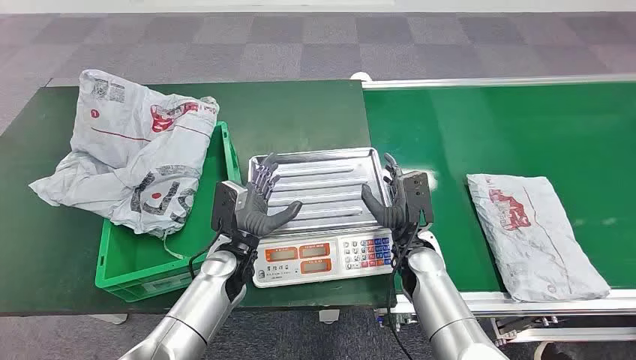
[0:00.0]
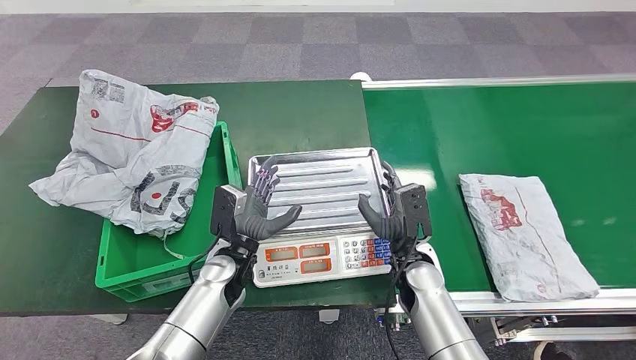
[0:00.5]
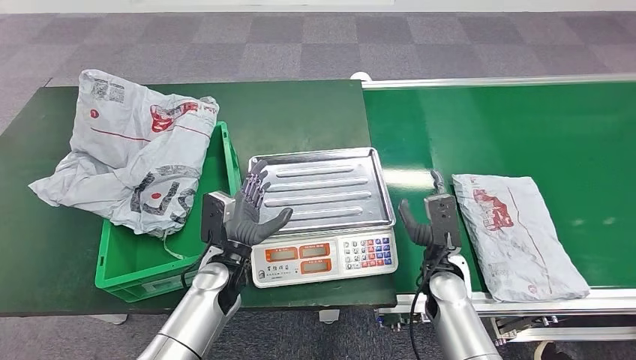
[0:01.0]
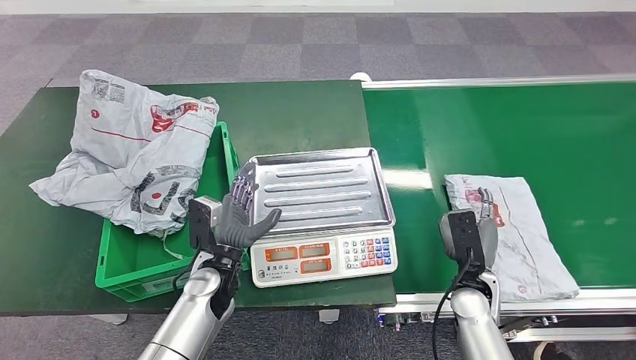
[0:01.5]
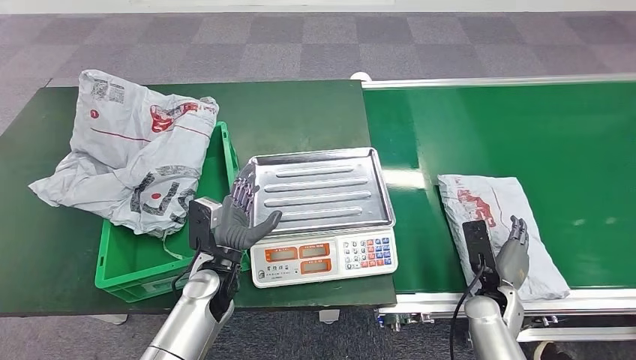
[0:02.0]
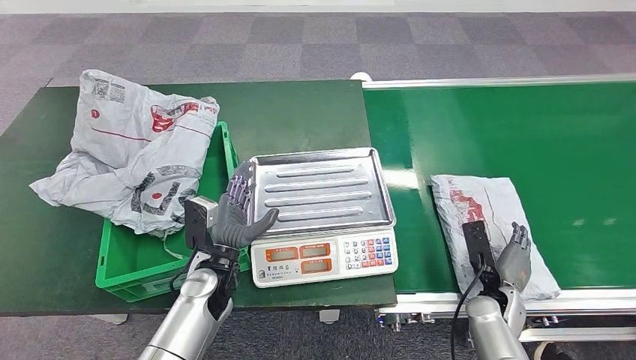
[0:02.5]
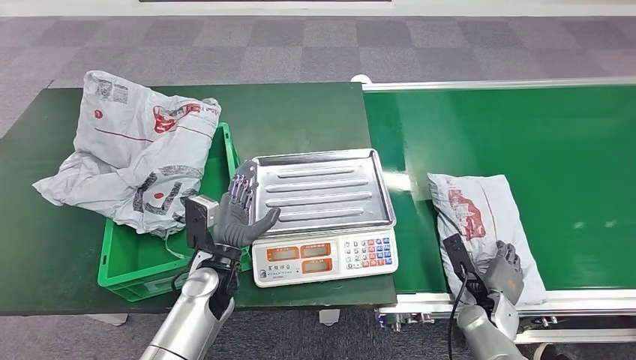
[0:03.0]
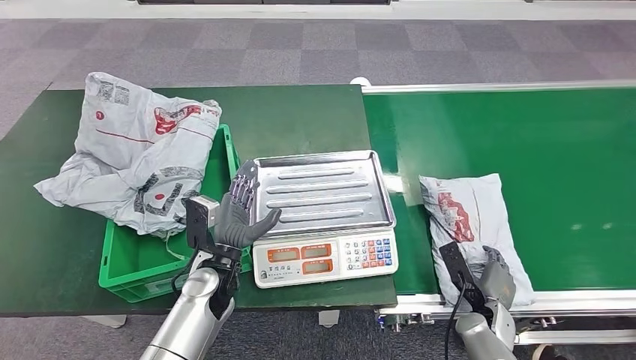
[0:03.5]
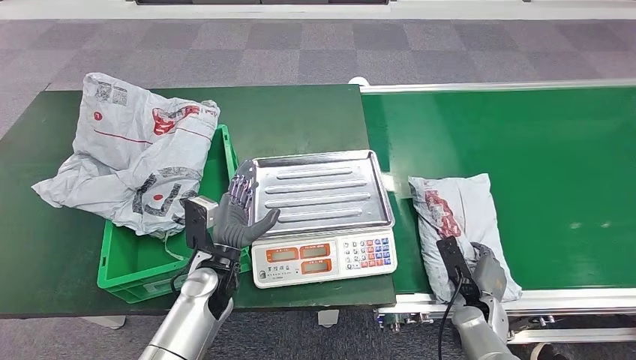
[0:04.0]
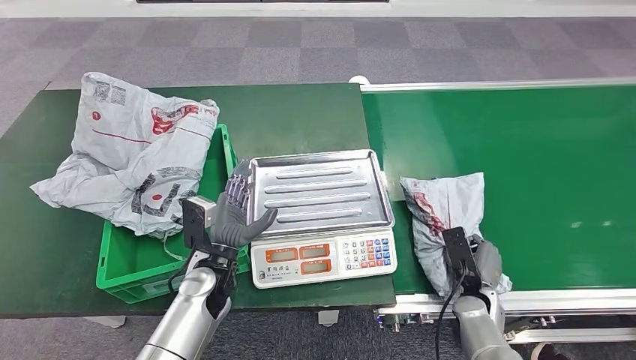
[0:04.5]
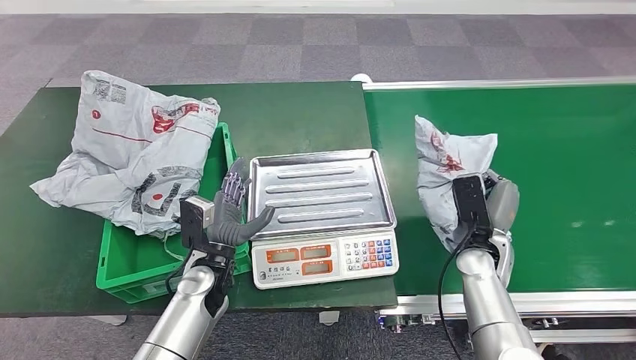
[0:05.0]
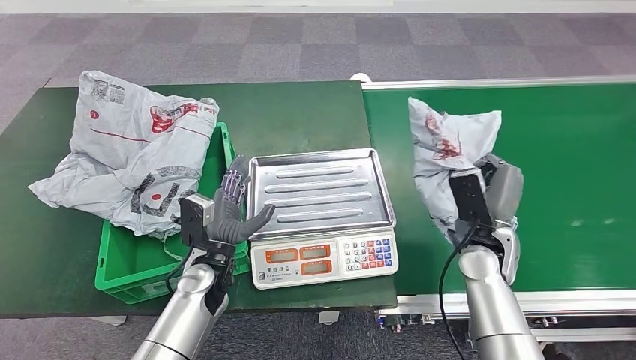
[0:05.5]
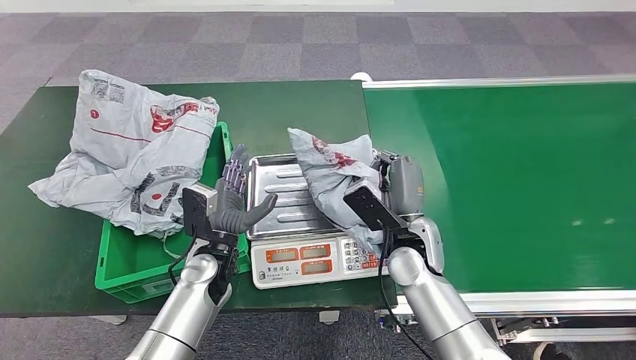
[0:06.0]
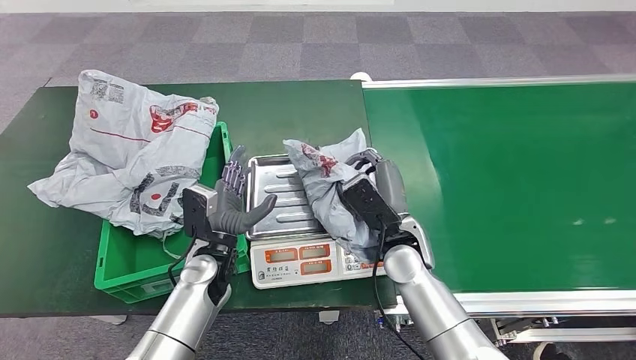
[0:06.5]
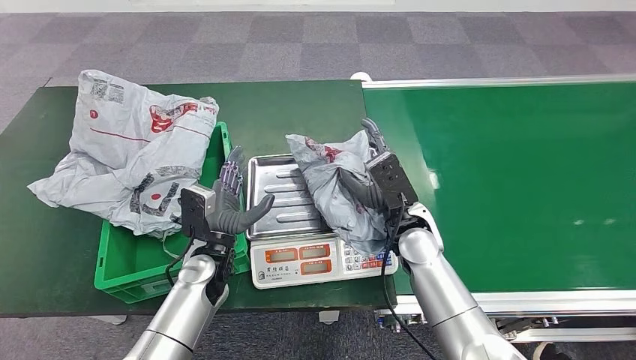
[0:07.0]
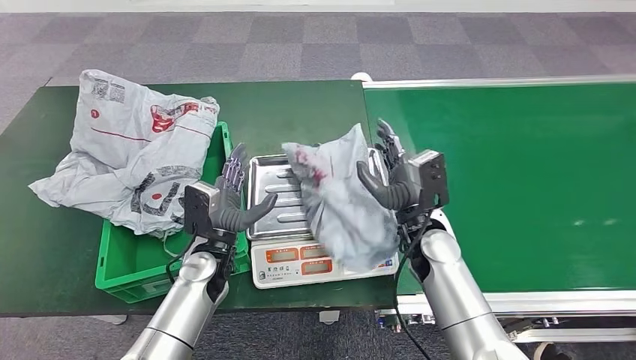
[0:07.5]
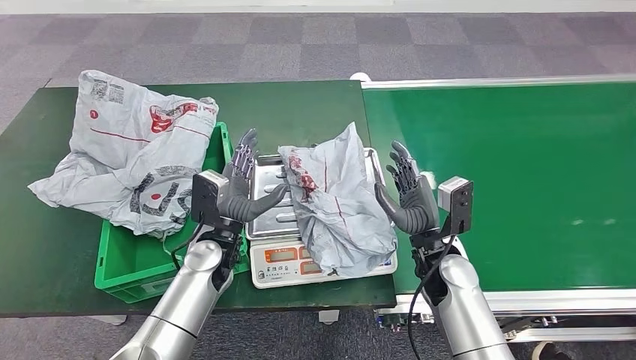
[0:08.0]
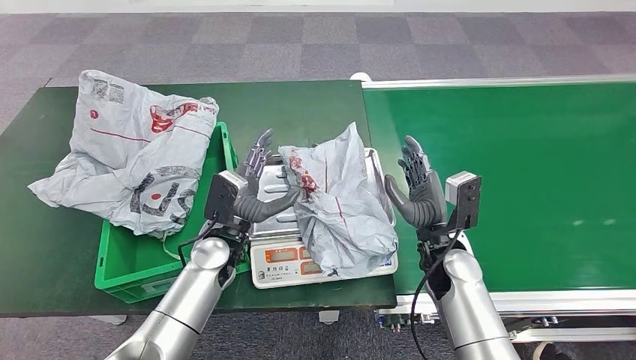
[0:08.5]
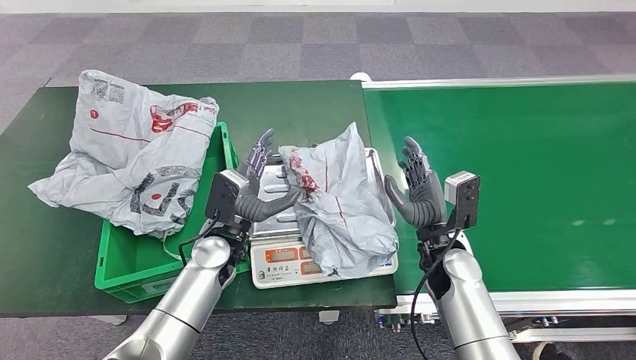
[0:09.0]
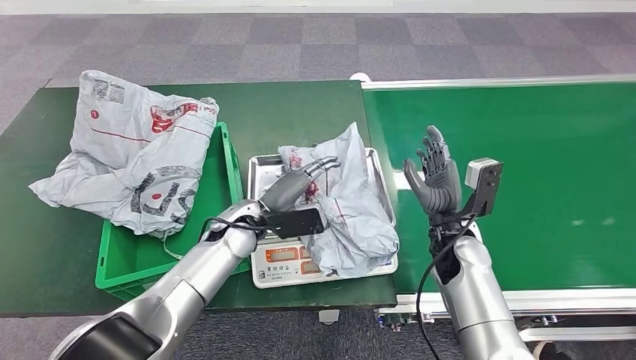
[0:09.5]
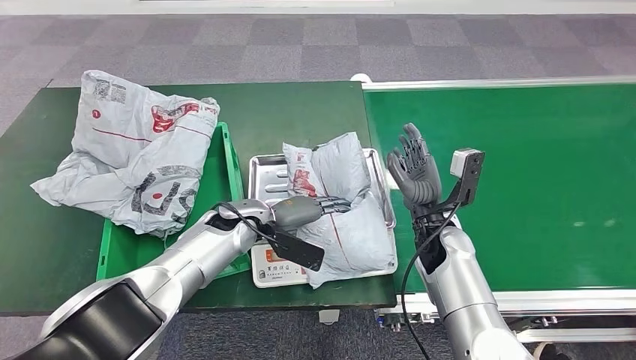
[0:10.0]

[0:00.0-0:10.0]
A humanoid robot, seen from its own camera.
Step, 0:00.0 to 0:05.0: Pick up the package from the conveyor belt.
Step, 0:05.5 to 0:08.0: Place the package onto the inbound machine.
0:02.0 to 0:04.0: The right hand ends up roughly 5 cm from where it was.
0:06.0 to 0:08.0: The right hand ends up some 5 cm from where it was.

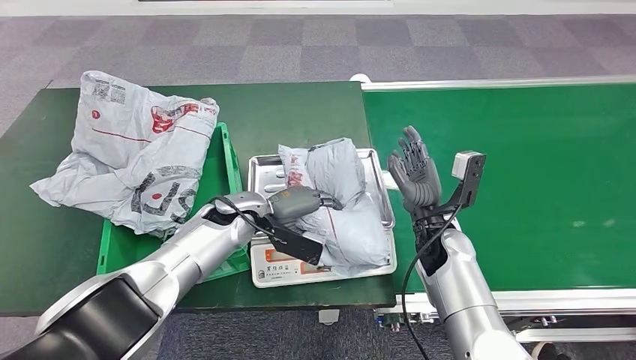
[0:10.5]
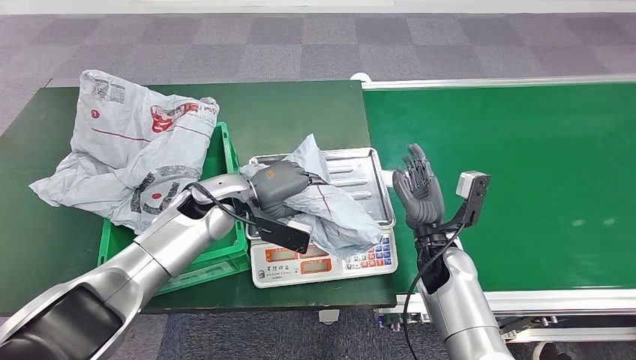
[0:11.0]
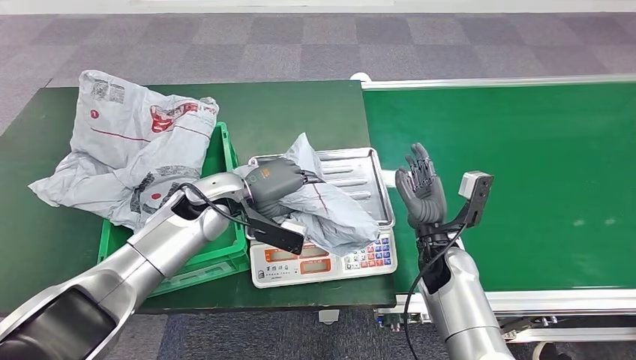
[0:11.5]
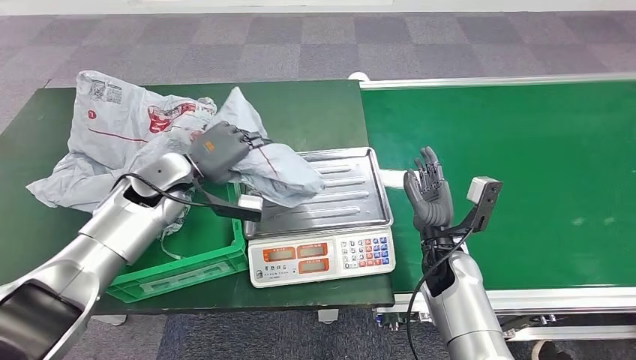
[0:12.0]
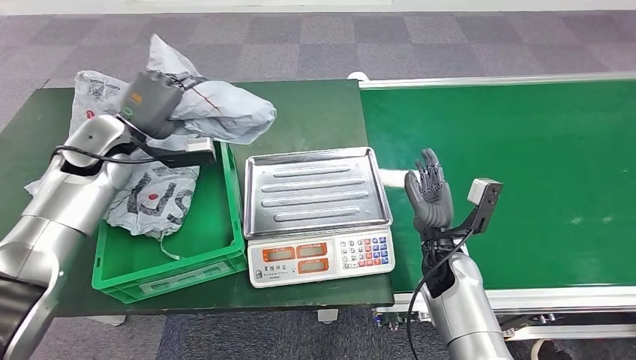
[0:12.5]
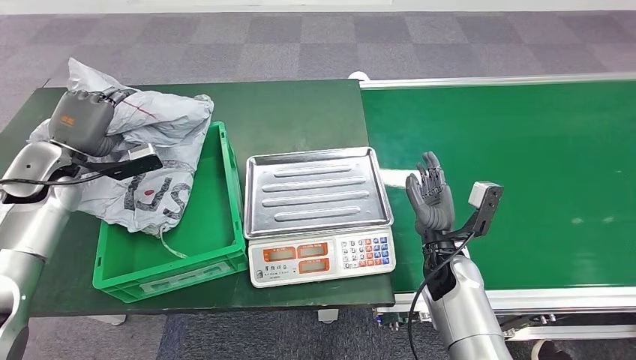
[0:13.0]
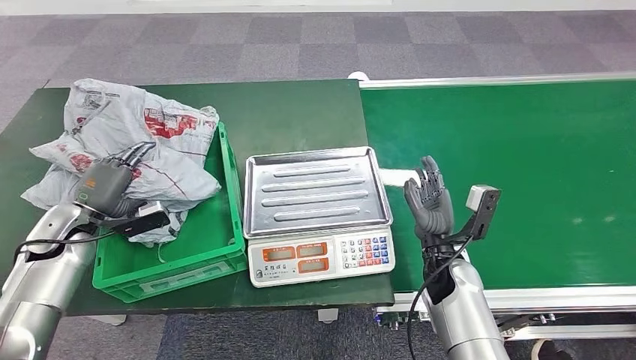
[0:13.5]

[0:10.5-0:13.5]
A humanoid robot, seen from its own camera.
Step, 0:11.5 to 0:13.0: Place the package into the parcel locker.

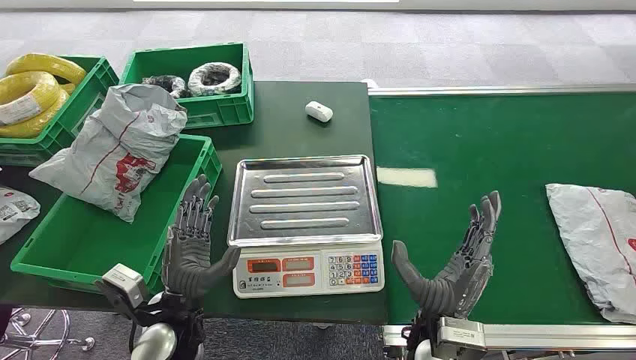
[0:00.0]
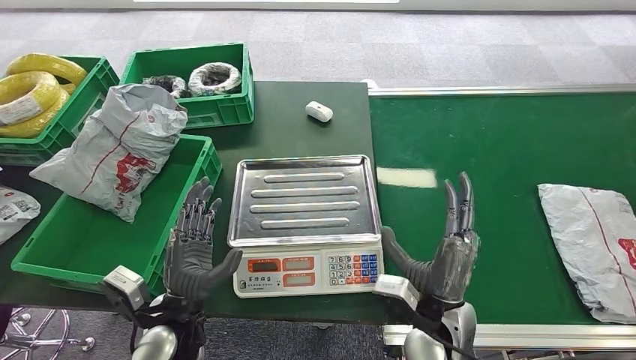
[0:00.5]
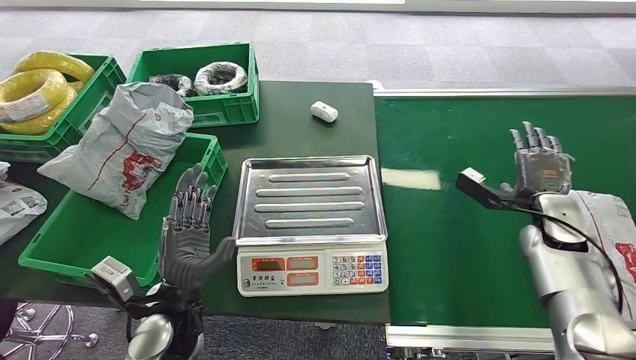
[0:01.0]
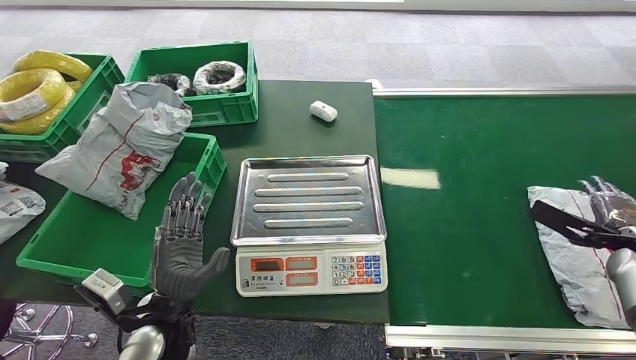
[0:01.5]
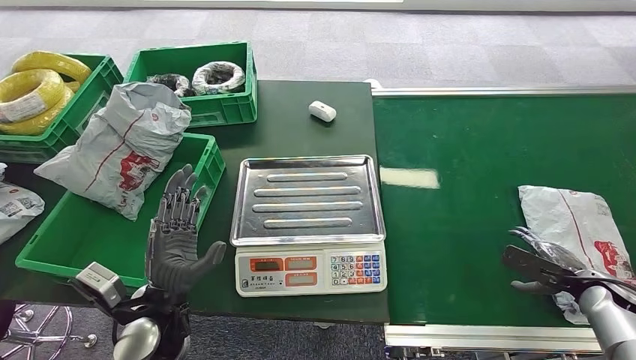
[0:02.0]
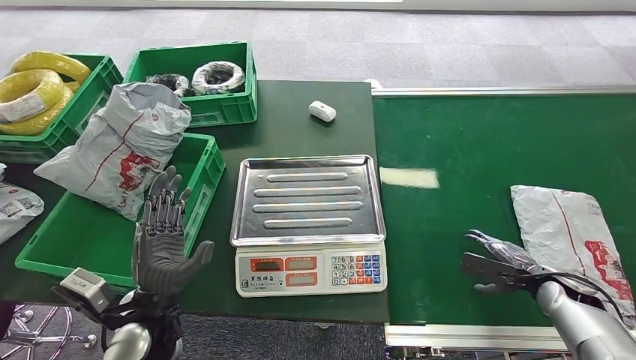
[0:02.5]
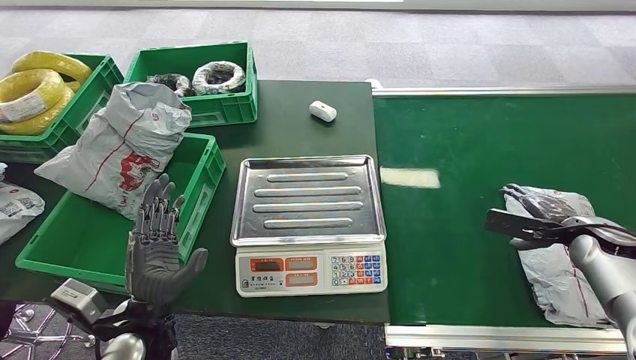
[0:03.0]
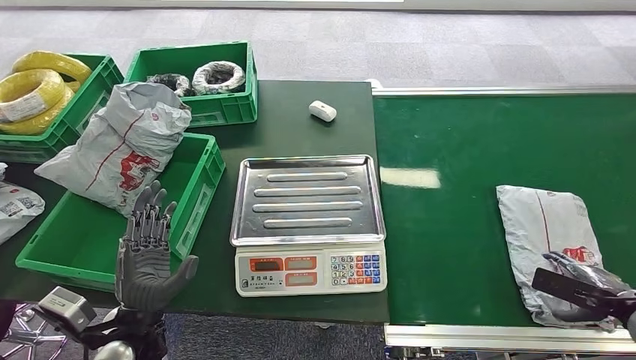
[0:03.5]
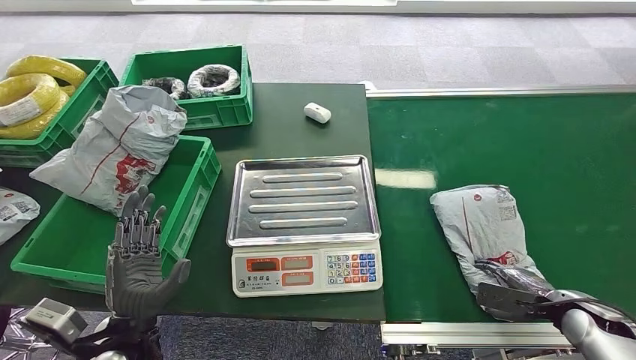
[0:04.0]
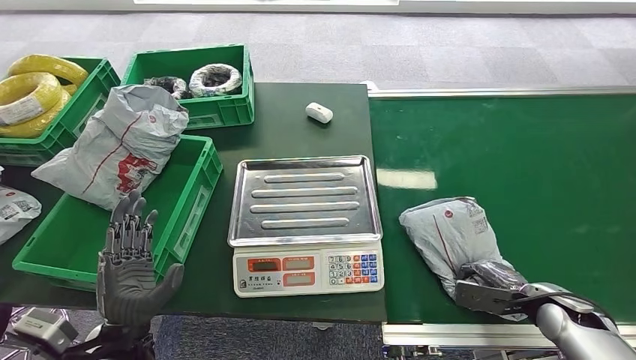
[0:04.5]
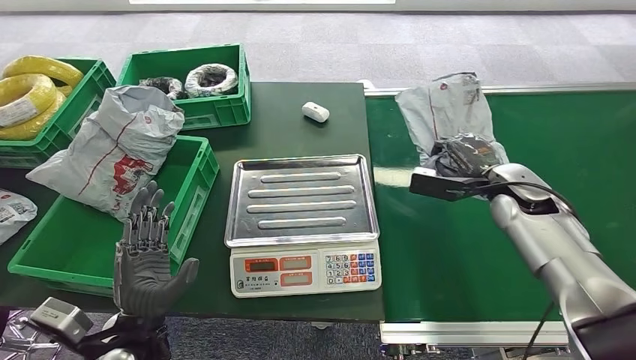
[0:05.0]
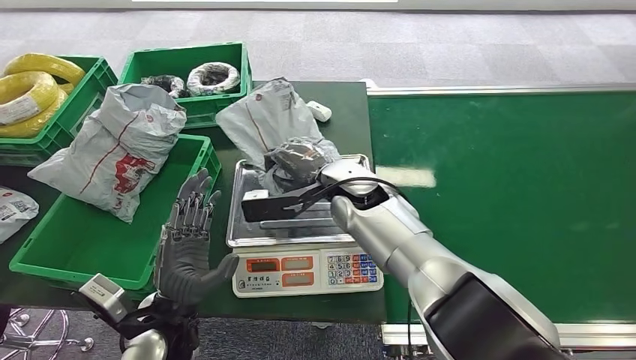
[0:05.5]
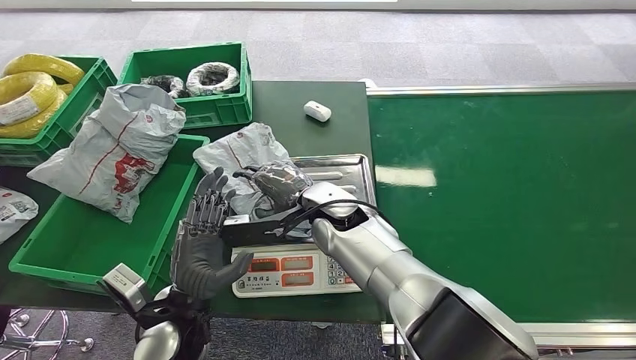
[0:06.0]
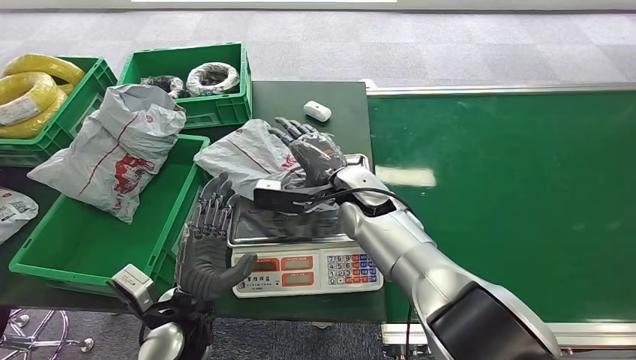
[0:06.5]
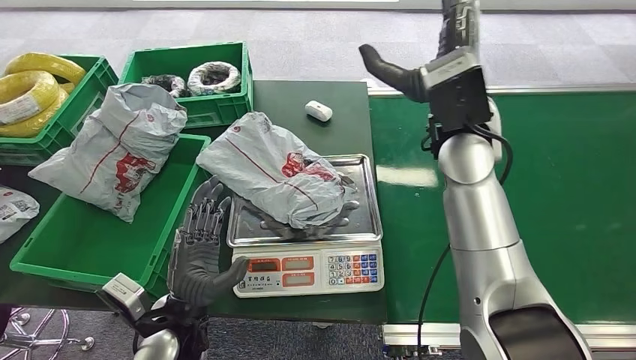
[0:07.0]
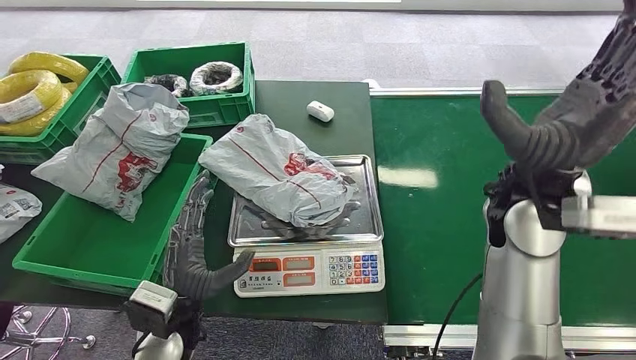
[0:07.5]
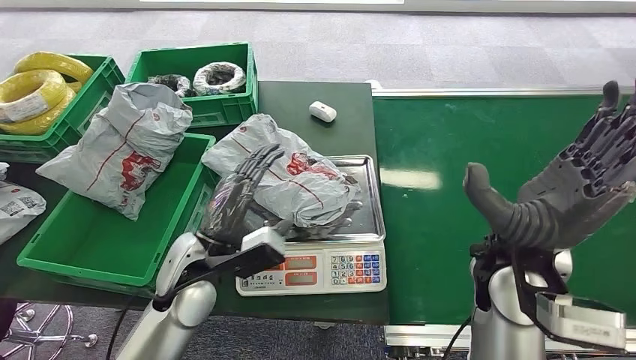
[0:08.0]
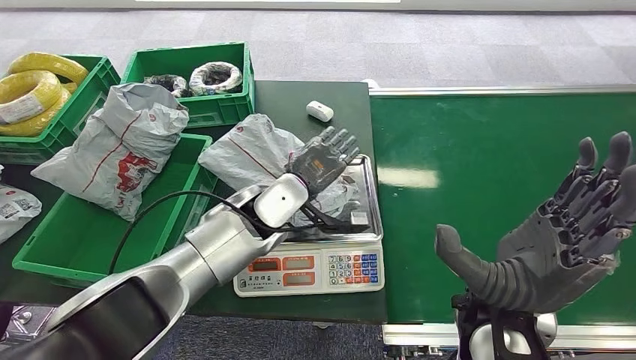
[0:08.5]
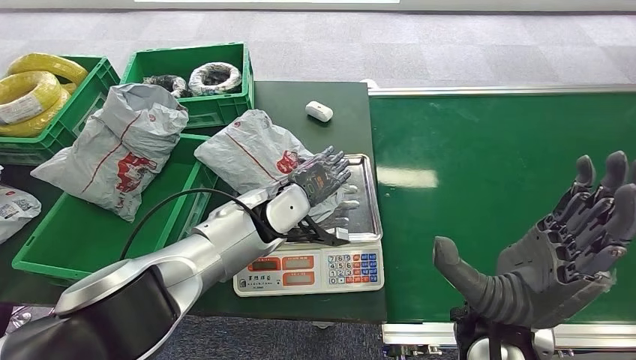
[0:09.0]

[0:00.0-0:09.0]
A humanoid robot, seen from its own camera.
Step, 0:00.0 to 0:04.5: Pick up the package from the conveyor belt.
Step, 0:05.5 to 0:07.0: Place the package onto the inbound machine.
